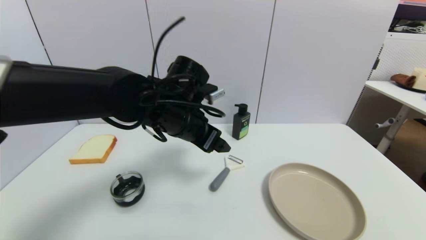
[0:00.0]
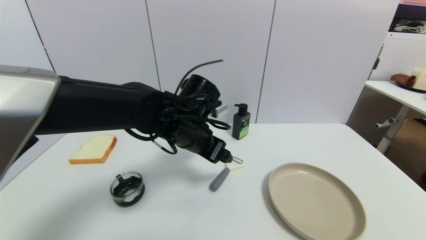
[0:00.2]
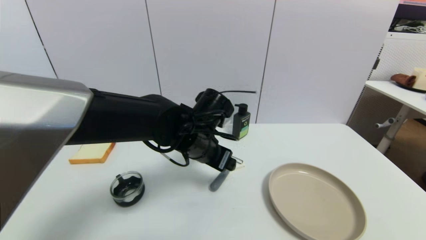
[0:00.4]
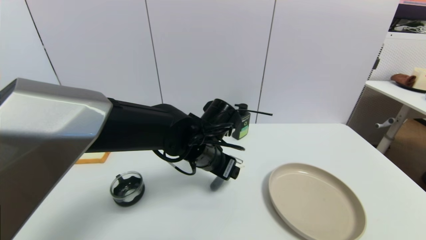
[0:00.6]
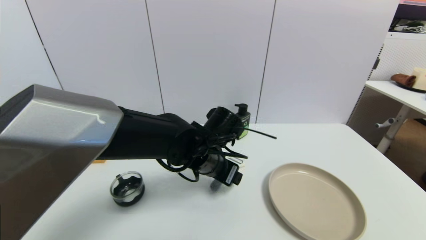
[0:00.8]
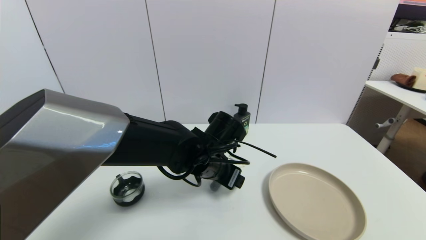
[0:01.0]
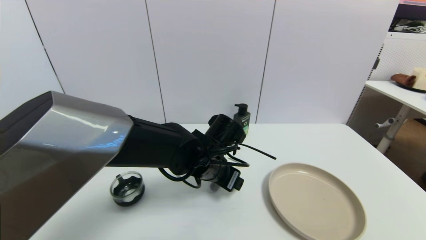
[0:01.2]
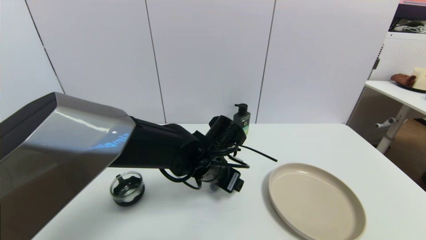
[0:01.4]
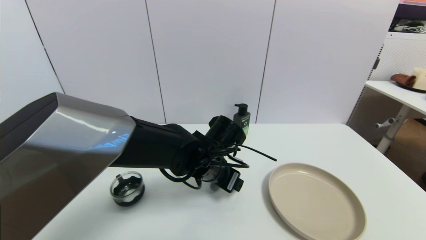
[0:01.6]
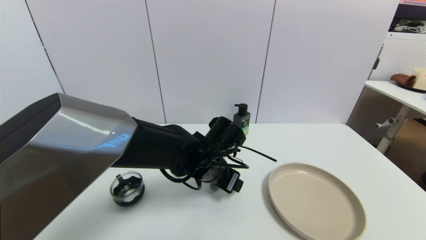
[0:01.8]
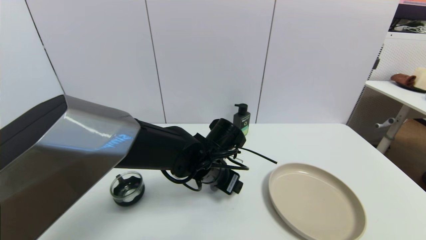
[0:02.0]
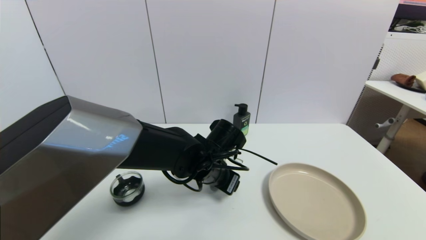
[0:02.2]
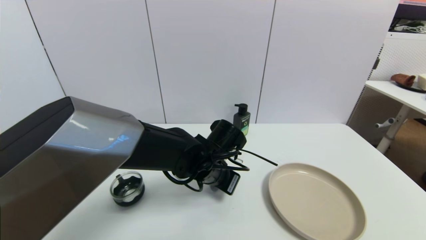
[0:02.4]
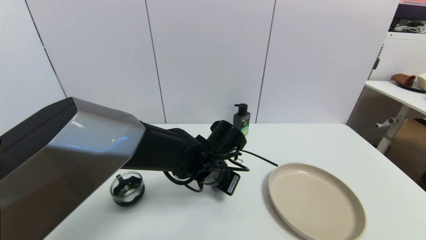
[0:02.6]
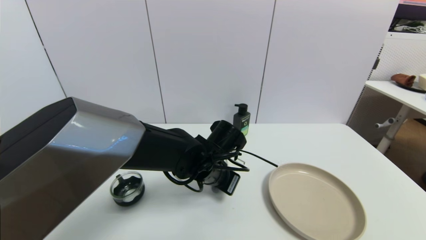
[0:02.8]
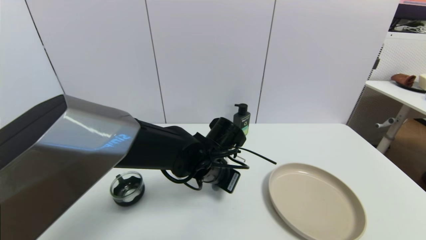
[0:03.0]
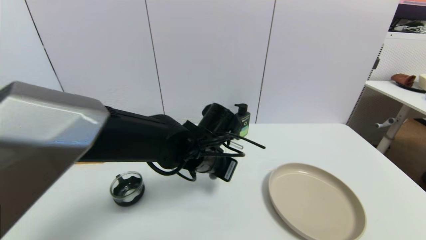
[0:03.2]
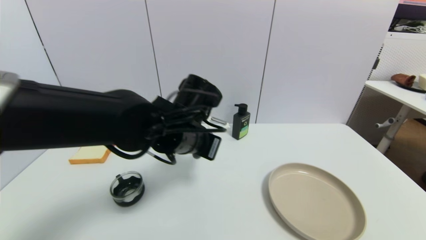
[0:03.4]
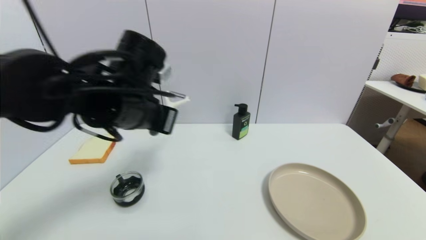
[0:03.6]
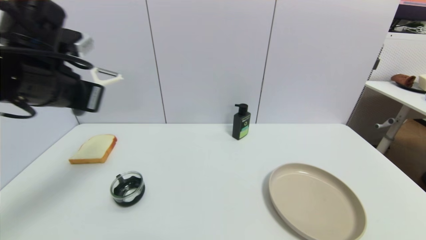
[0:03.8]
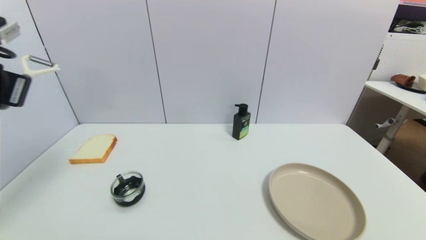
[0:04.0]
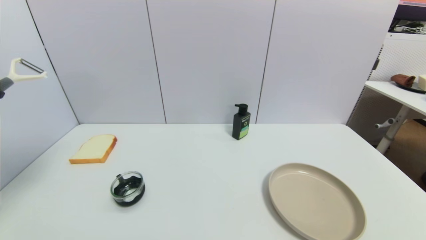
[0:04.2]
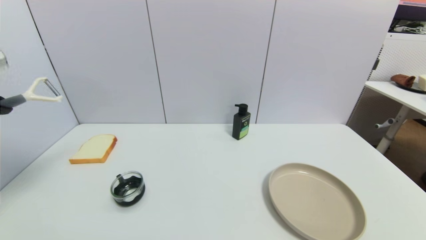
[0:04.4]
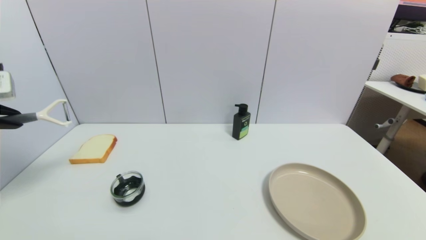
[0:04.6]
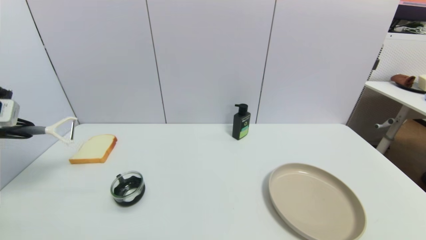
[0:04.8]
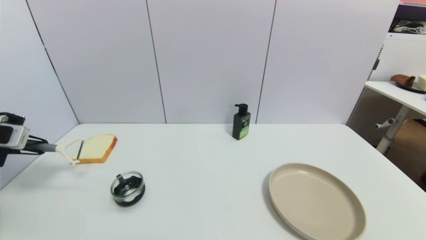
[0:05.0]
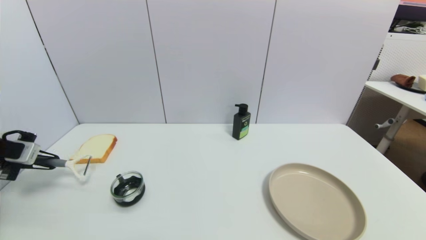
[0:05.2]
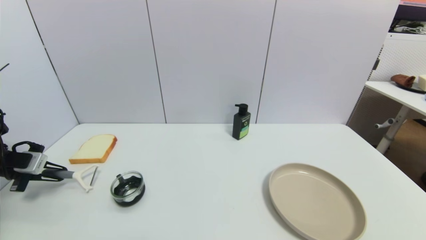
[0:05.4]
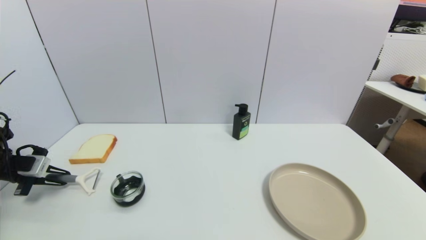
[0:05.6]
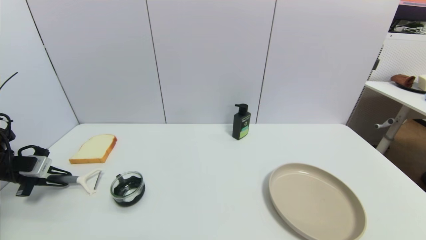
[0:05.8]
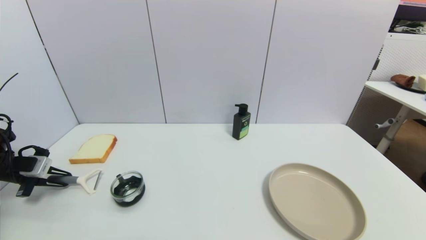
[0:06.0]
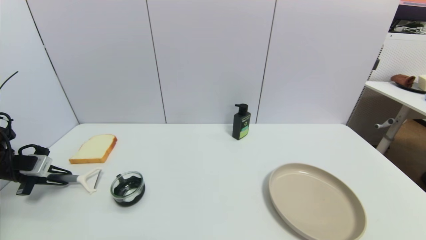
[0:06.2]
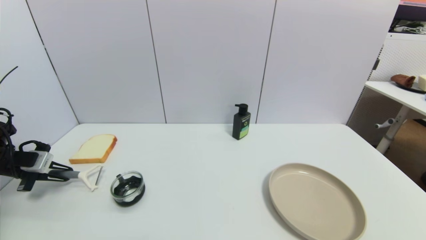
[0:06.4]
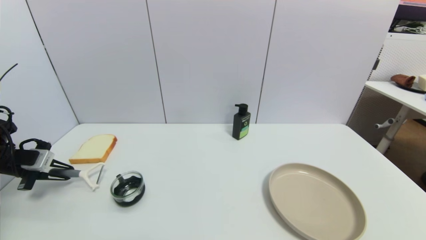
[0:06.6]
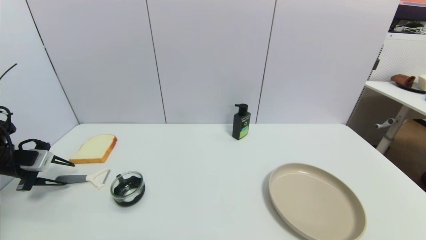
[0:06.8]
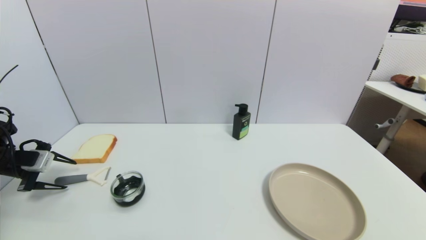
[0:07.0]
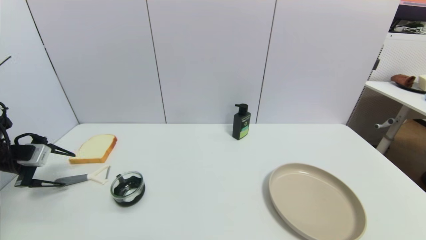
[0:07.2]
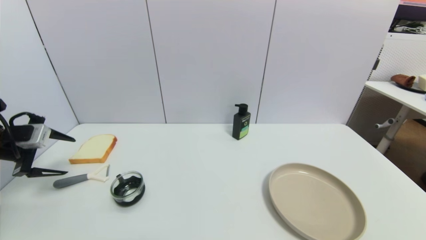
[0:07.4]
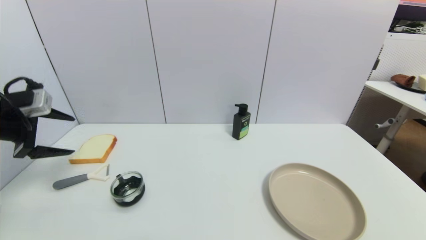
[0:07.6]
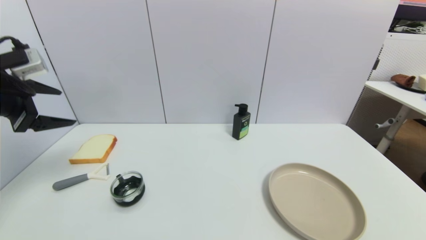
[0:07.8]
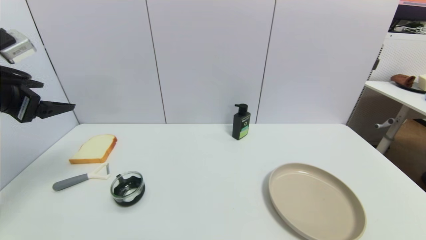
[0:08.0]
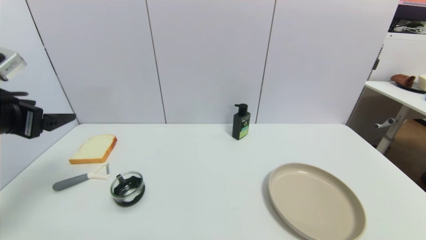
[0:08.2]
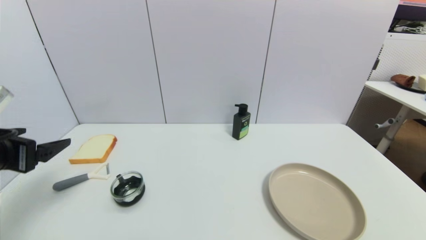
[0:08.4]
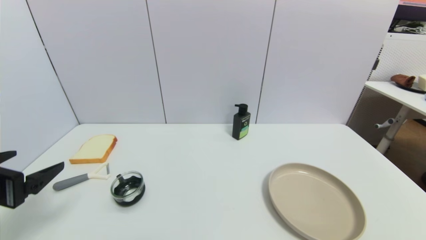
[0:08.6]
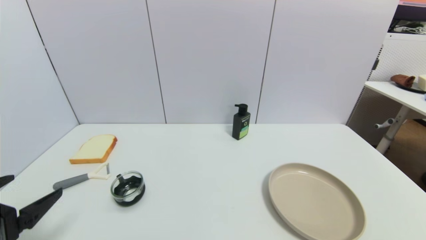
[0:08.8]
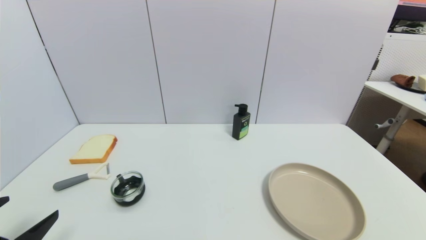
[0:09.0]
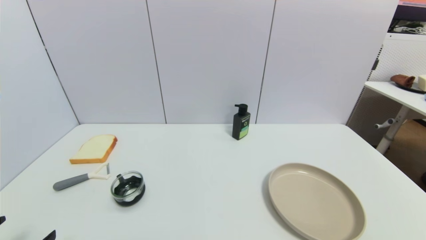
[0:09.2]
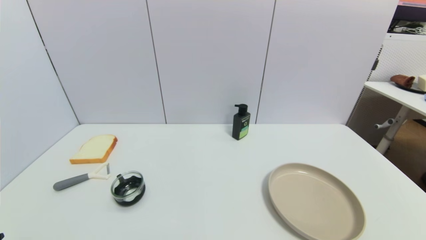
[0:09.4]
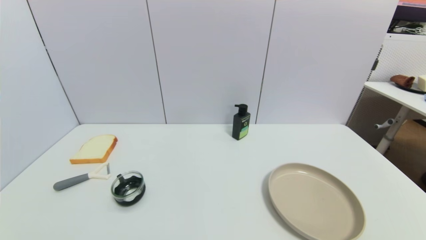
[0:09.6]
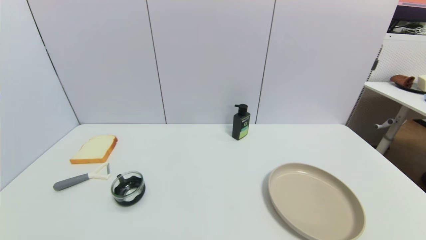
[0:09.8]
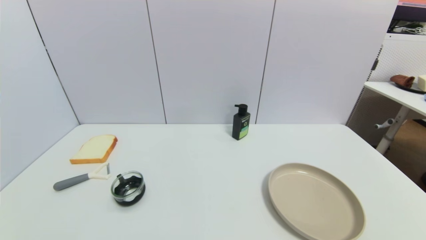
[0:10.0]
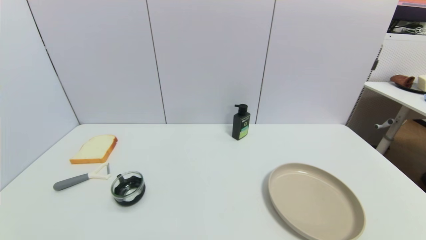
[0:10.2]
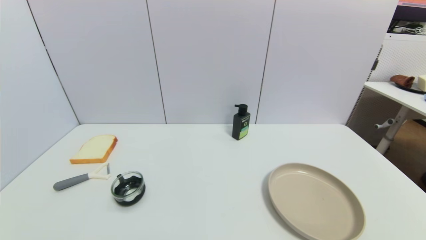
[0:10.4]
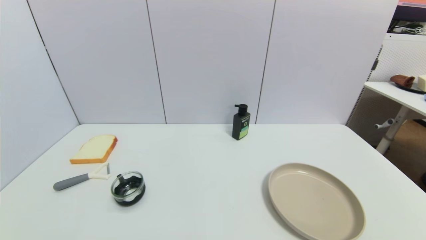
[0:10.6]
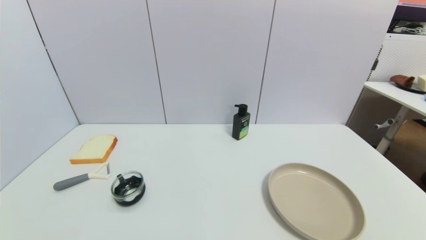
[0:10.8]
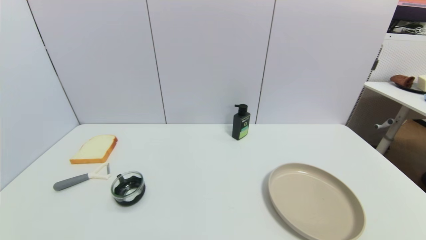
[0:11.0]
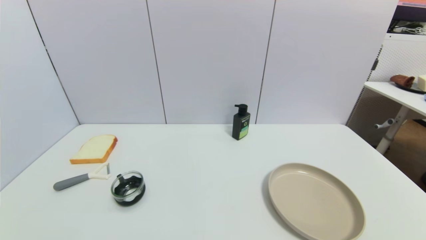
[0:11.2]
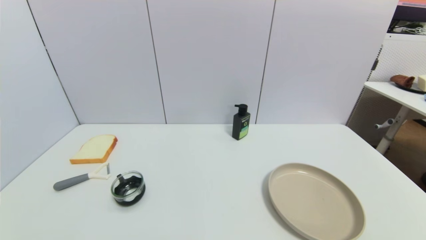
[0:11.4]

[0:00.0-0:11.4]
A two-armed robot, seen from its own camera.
Step, 0:00.0 to 0:03.0: Grasp the peeler with left gripper.
Step, 0:03.4 to 0:07.0: Place the peeler on the table with left gripper.
0:00.0 to 0:01.4: The left gripper shifts about 10 cm downward and to the right.
0:01.4 to 0:02.8: The left gripper closes its fingers.
0:02.8 to 0:04.2: The left gripper moves to the left and upward, roughly 40 cm.
0:04.2 to 0:05.6: The left gripper travels downward and to the left by approximately 25 cm.
0:05.6 to 0:07.2: The left gripper opens its fingers.
0:07.2 to 0:08.6: The left gripper is displaced backward and to the right by some 20 cm.
0:08.6 to 0:10.0: The left gripper shifts approximately 20 cm backward and downward.
0:10.0 to 0:11.4: The two grippers keep their place.
